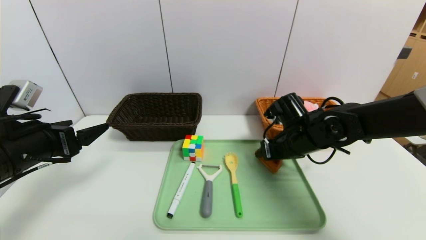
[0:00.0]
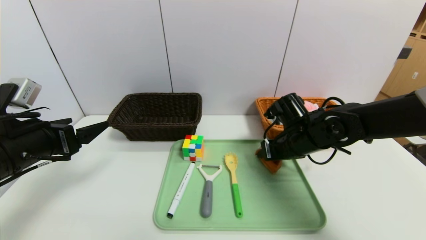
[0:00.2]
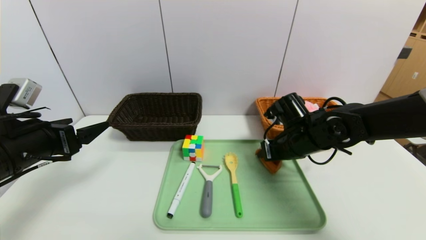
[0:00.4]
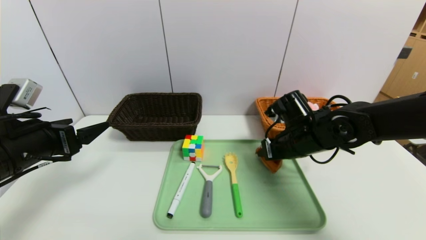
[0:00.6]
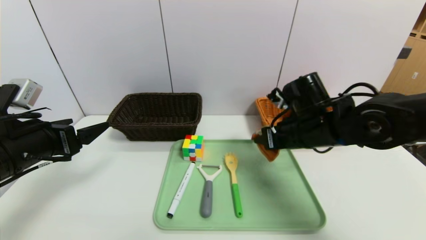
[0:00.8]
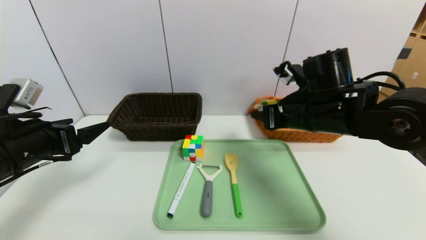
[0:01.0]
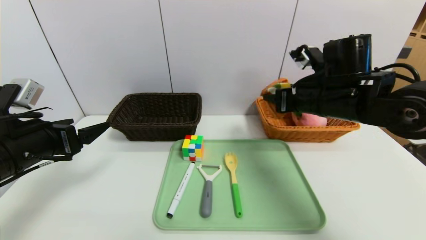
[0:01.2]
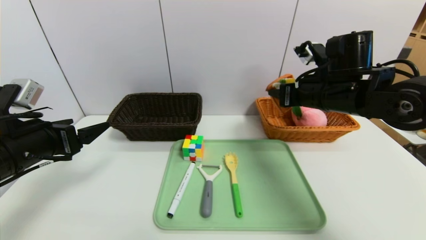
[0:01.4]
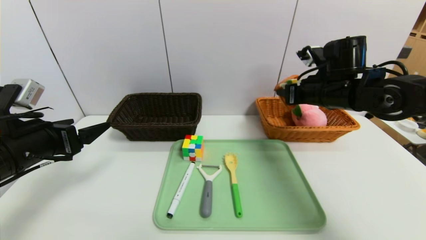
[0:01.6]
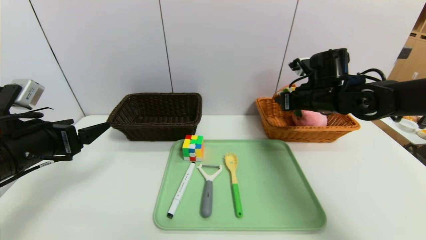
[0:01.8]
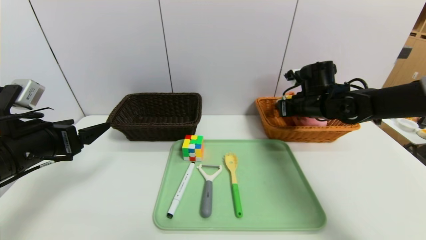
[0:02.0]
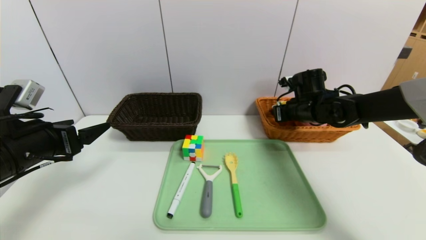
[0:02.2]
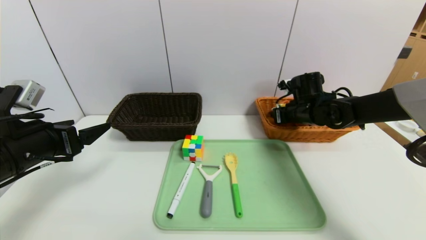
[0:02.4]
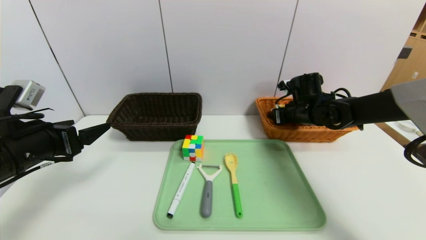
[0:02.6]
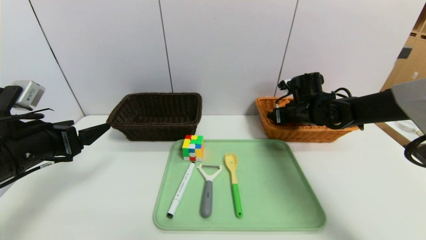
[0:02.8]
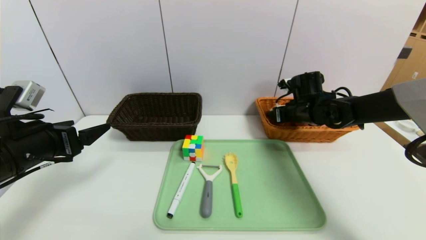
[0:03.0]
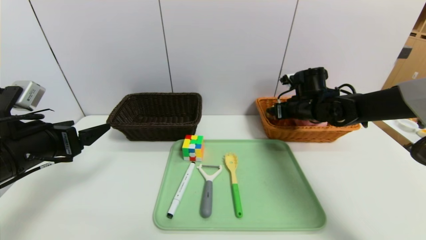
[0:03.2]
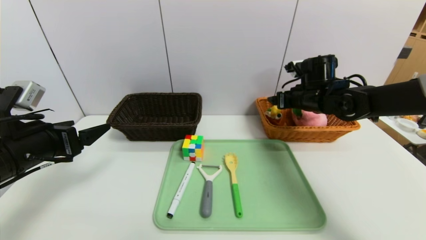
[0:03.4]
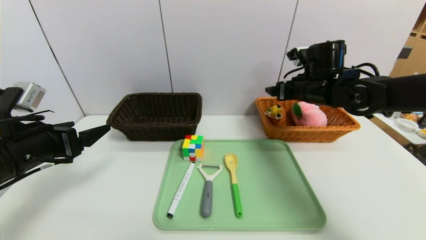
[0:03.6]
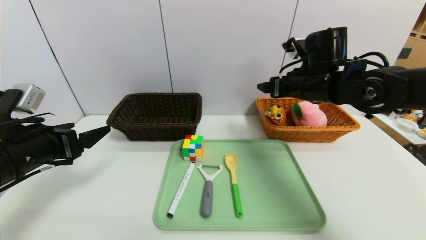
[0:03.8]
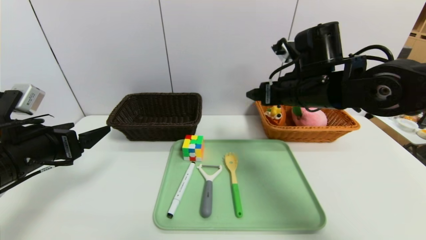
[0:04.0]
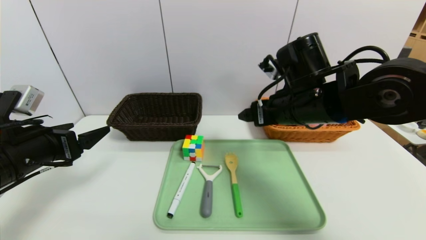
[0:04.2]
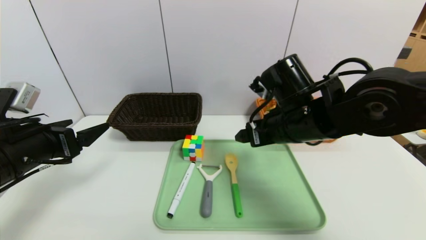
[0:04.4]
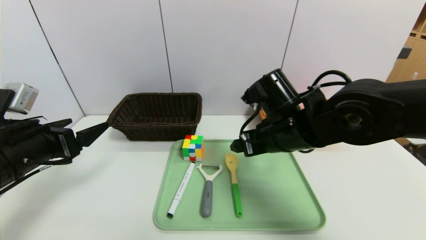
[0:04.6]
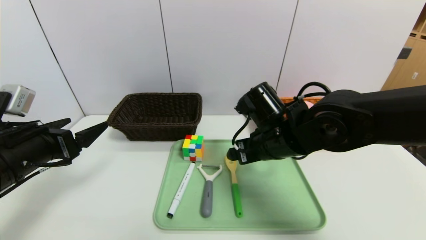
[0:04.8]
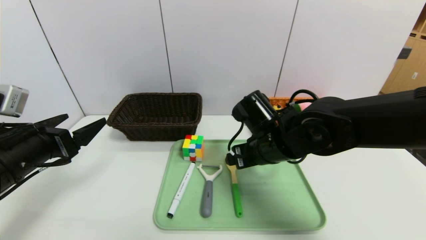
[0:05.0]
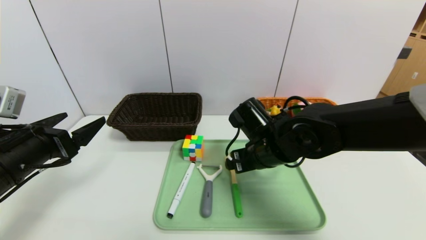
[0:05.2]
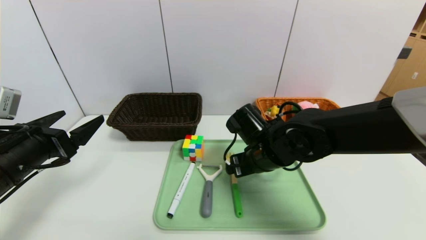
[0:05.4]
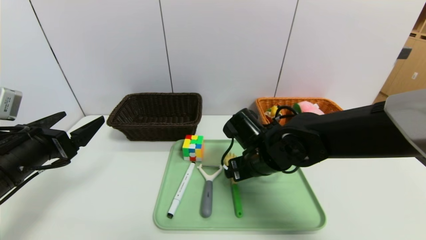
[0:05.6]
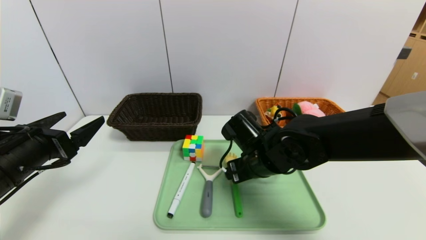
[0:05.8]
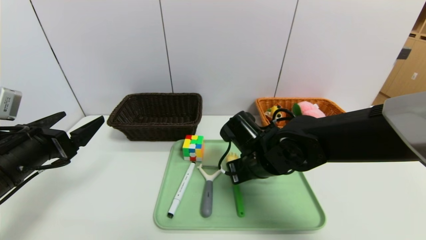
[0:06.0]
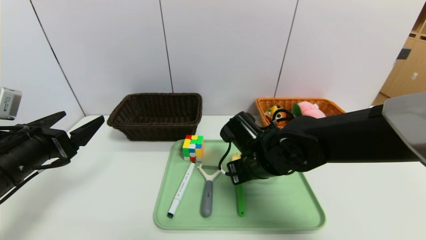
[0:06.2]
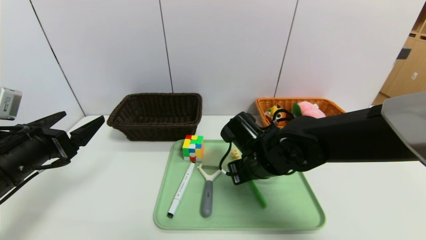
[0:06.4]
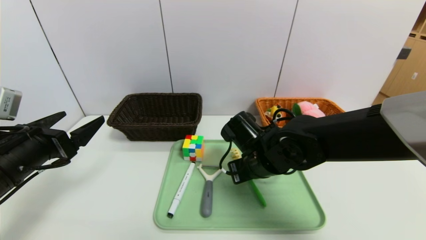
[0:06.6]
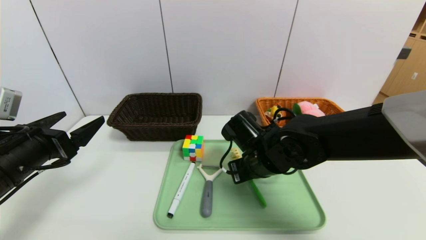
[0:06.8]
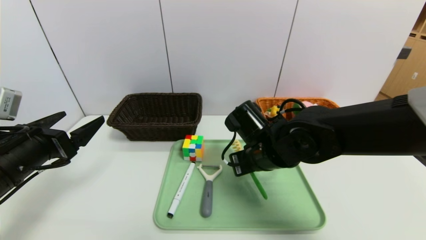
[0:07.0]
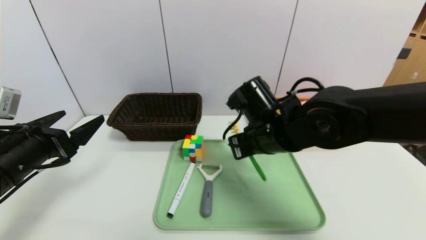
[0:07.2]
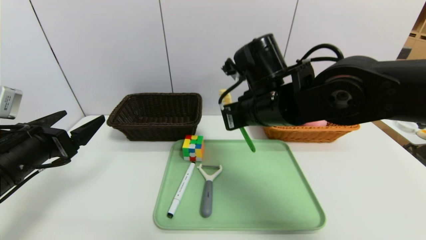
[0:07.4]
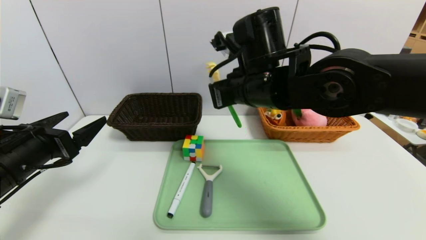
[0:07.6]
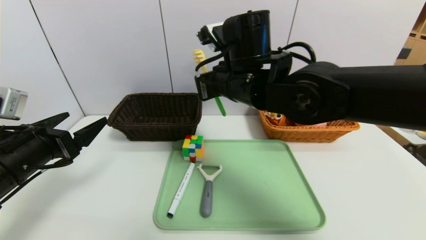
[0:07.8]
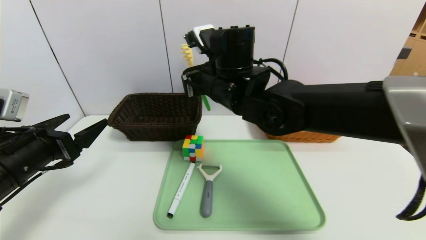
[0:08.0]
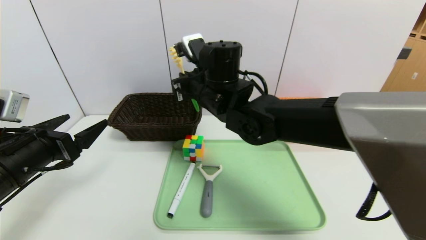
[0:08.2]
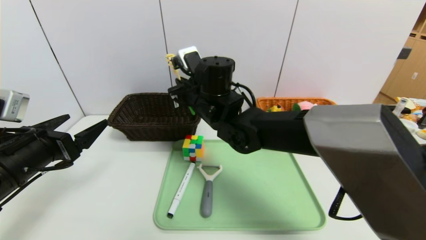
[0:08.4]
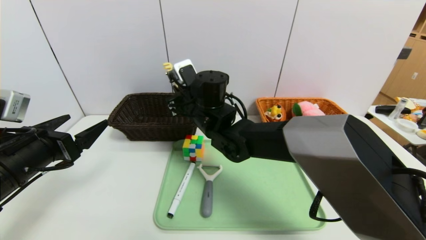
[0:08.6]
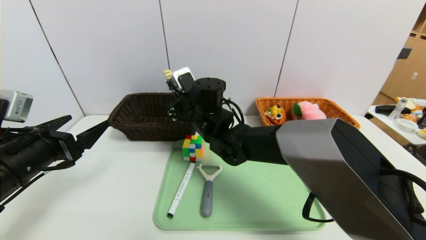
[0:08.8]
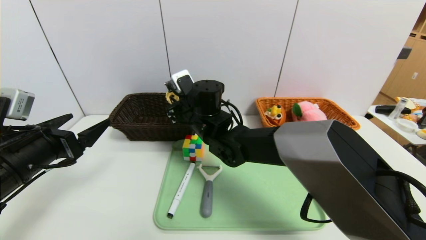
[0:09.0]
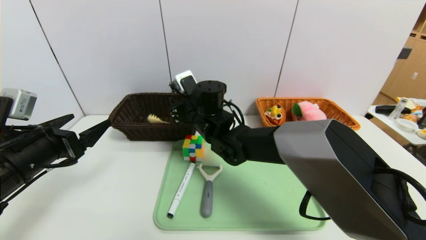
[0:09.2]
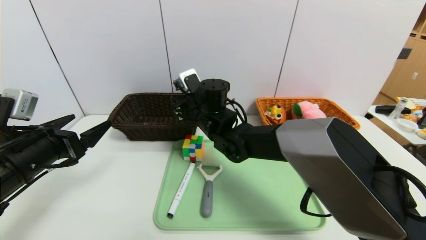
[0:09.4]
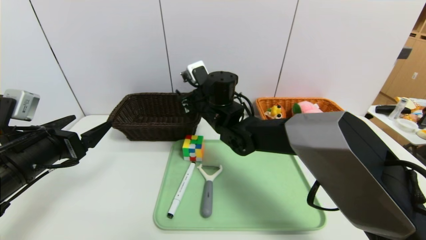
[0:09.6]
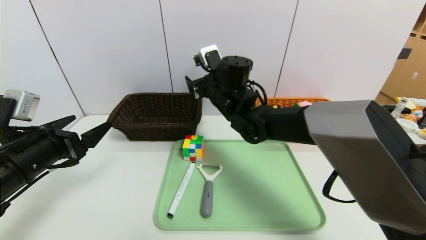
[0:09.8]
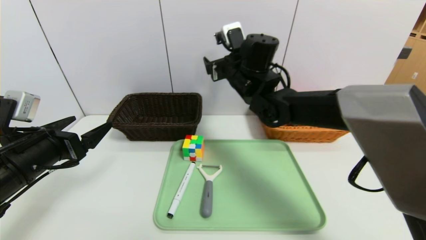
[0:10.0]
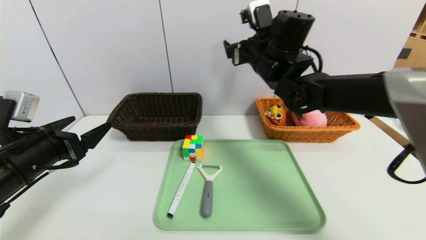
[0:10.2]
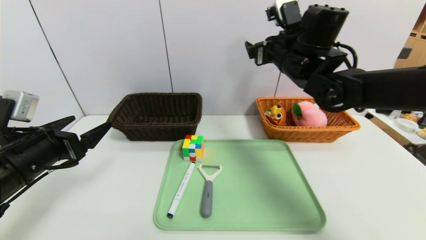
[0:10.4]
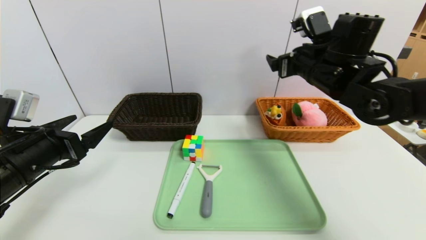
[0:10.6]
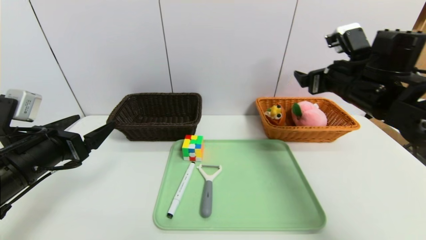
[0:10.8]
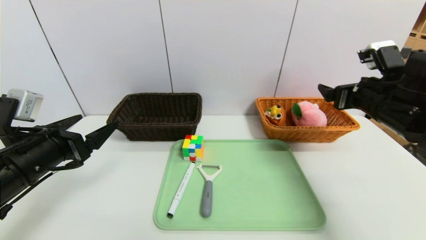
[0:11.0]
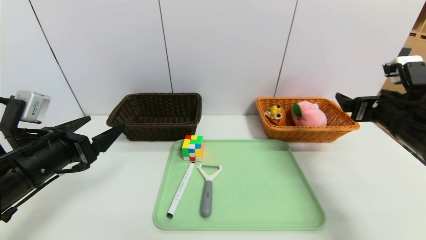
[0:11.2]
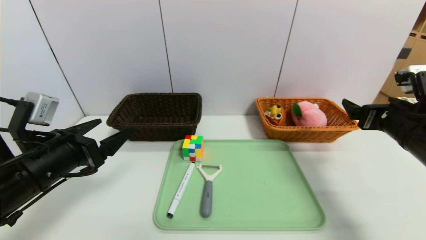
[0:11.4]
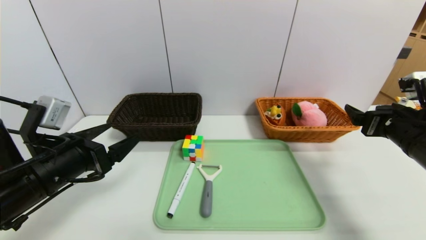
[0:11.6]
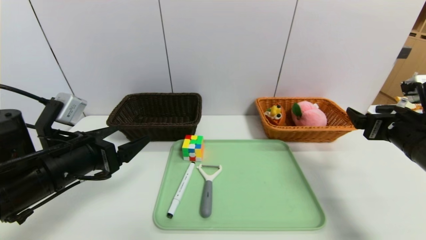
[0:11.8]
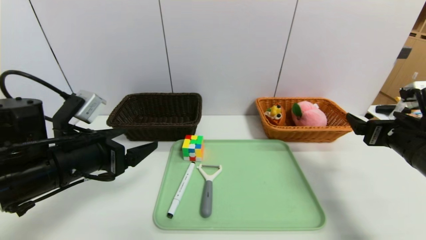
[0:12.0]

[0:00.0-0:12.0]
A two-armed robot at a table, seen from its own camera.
Task of the whole recording: place the food in the right basket with the right gripper, and place the non food items in the left basket with the left gripper.
Step, 0:00.0 to 0:03.4: Grasp the triangle cake and put it in the right basket.
0:00.0 to 0:01.6: The right gripper shifts approximately 10 cm upward and to the right.
0:01.6 to 0:03.0: The right gripper is displaced downward and forward by roughly 10 cm, and opens.
0:03.0 to 0:04.4: The right gripper shifts approximately 20 cm backward, to the left and upward.
0:04.4 to 0:06.0: The right gripper heads downward, covering roughly 10 cm, and closes up.
0:06.0 to 0:07.6: The right gripper moves upward, roughly 15 cm, and closes up.
0:07.6 to 0:09.0: The right gripper is displaced downward, to the left and forward by roughly 15 cm.
0:09.0 to 0:10.4: The right gripper moves to the right and upward, roughly 25 cm, and opens up.
0:10.4 to 0:12.0: The right gripper travels to the right, backward and downward by some 25 cm; the left gripper heads to the right, covering roughly 5 cm.

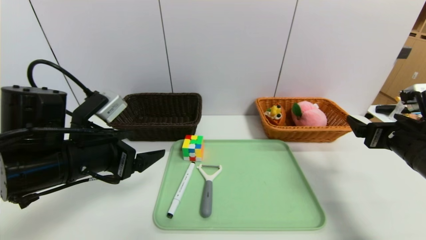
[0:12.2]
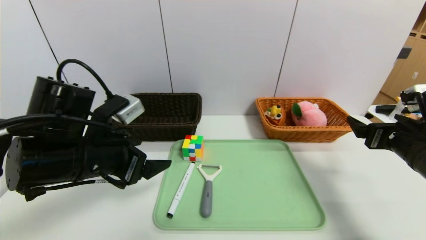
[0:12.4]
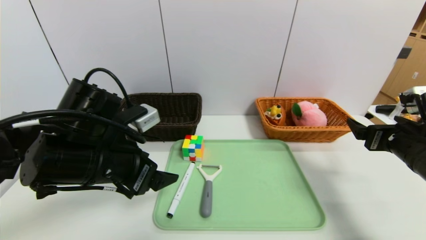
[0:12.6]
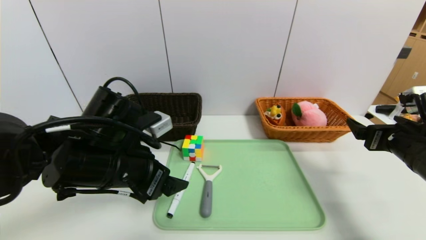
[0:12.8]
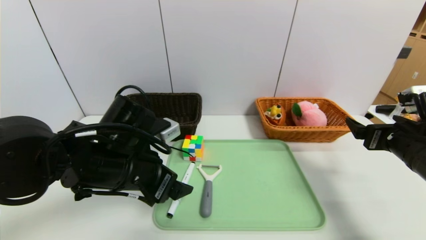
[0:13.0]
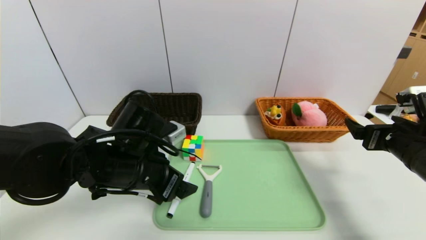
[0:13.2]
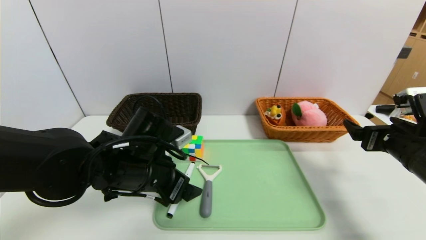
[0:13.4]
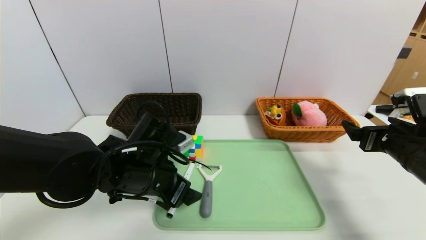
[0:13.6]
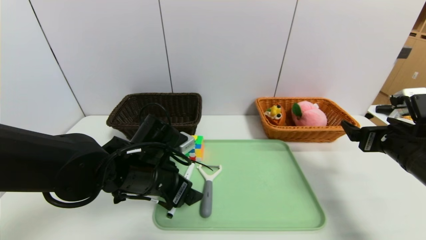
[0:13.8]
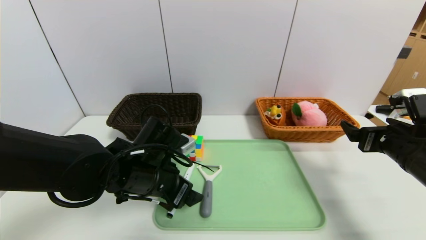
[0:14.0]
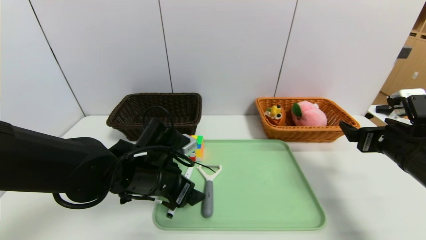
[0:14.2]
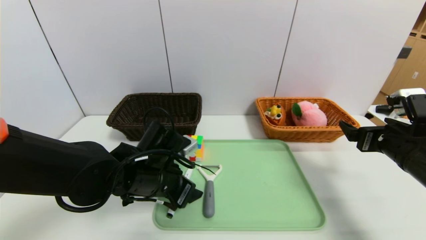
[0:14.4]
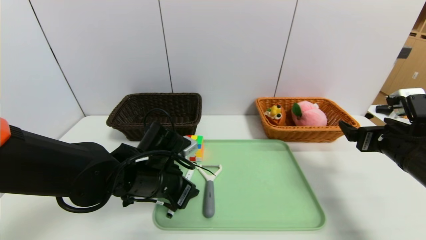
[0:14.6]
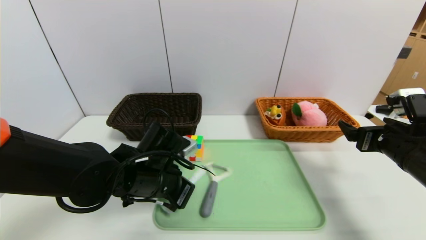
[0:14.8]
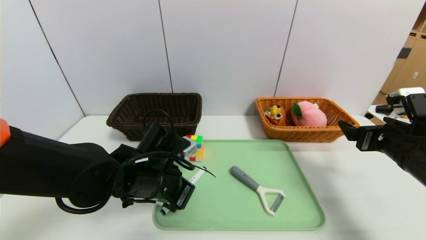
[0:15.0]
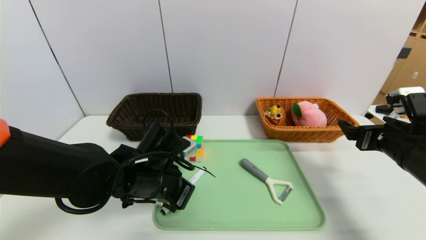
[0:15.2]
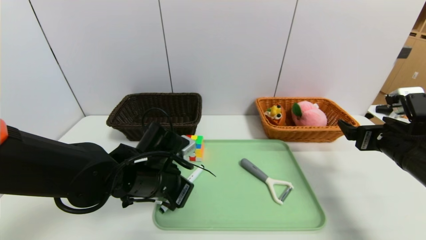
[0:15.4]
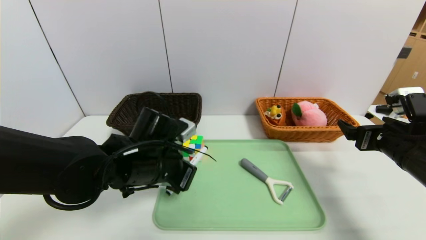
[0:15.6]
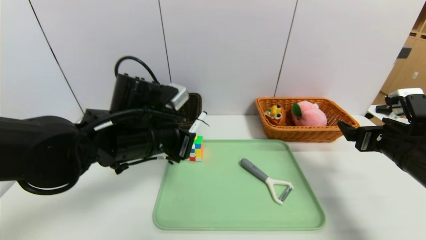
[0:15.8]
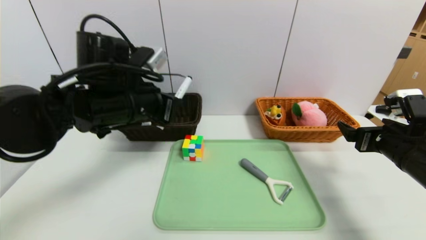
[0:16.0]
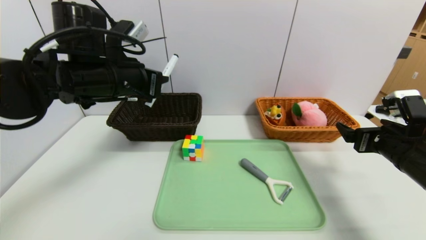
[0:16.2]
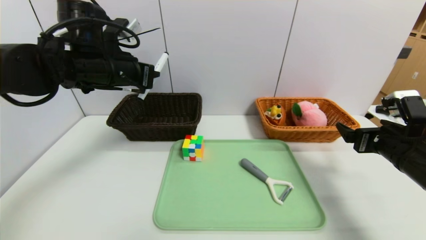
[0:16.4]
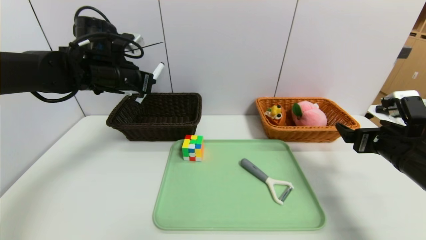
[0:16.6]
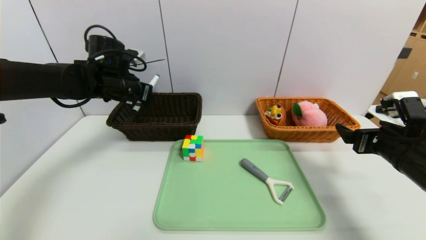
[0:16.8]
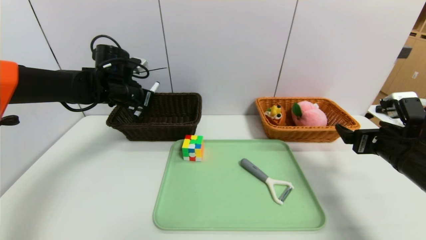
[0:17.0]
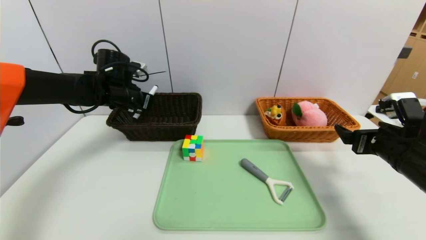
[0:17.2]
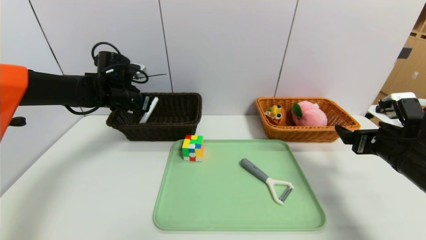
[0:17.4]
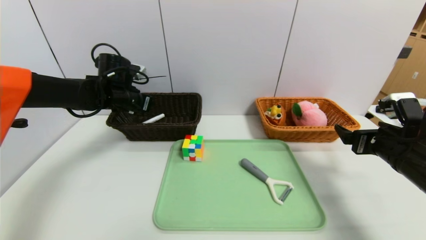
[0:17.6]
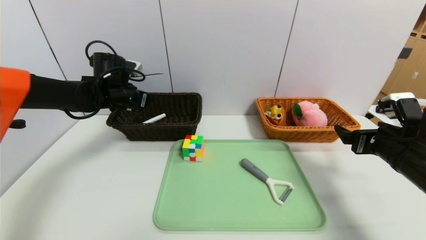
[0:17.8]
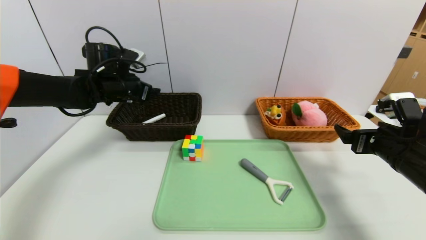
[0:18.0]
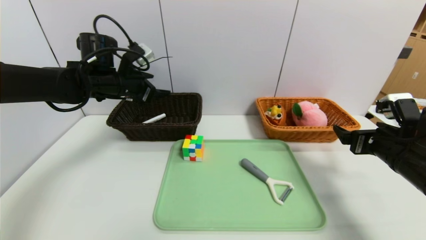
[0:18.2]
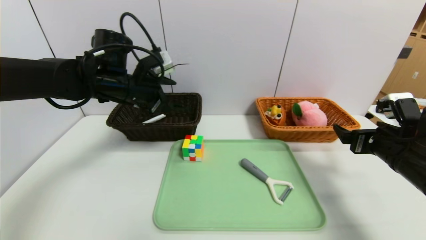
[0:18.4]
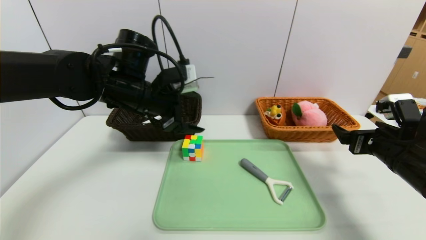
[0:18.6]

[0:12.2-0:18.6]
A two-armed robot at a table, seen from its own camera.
Task of the whole recording: place the food in the right basket with the right gripper, and place the non food items in the left basket with the left gripper.
Step, 0:12.2 to 0:17.6: Grasp the black marker and put it in the left basket.
0:12.2 to 0:13.8: The left gripper travels to the right and downward by roughly 10 cm.
0:13.8 to 0:15.4: The left gripper closes its fingers.
0:15.4 to 0:17.0: The left gripper moves forward, to the left and upward, some 25 cm.
0:17.0 to 0:18.6: The left gripper goes some 15 cm to the right and backward, and opens.
